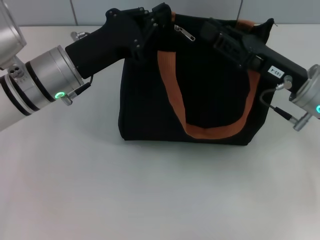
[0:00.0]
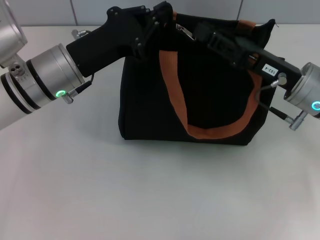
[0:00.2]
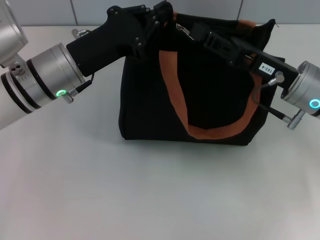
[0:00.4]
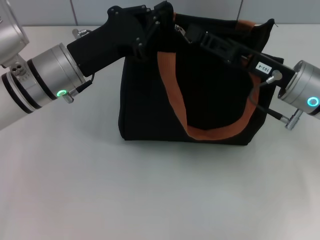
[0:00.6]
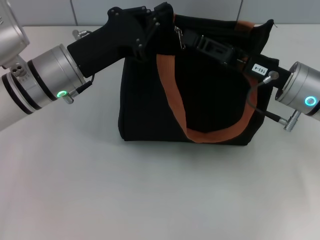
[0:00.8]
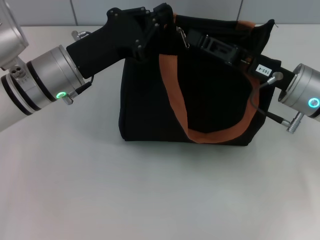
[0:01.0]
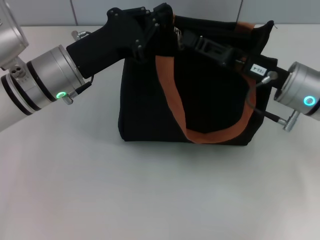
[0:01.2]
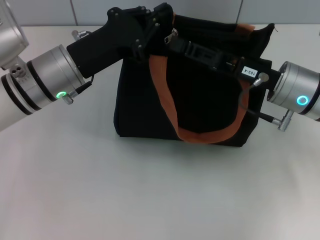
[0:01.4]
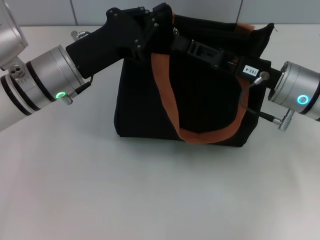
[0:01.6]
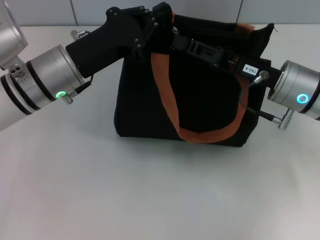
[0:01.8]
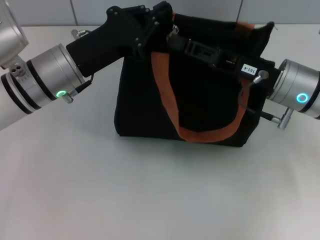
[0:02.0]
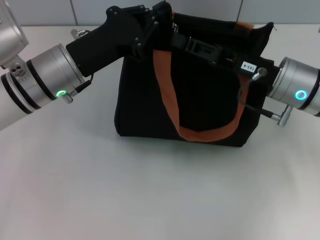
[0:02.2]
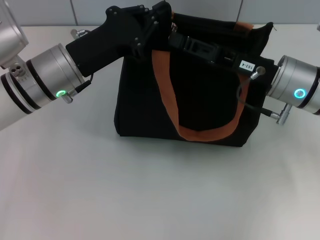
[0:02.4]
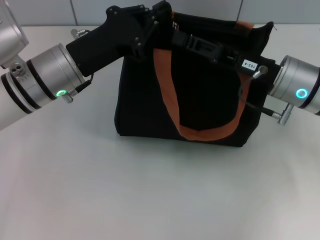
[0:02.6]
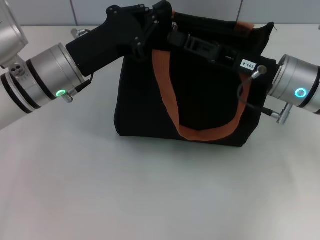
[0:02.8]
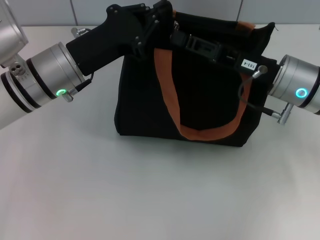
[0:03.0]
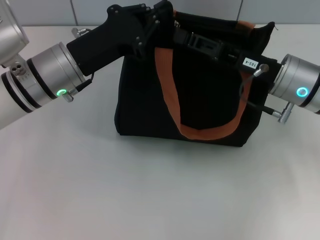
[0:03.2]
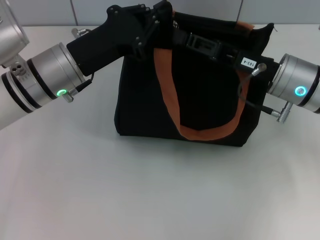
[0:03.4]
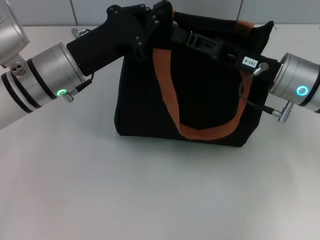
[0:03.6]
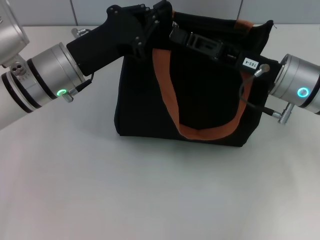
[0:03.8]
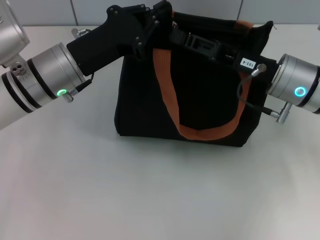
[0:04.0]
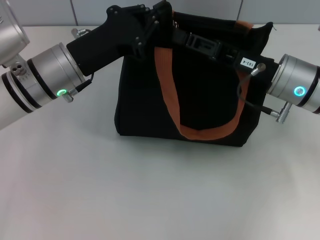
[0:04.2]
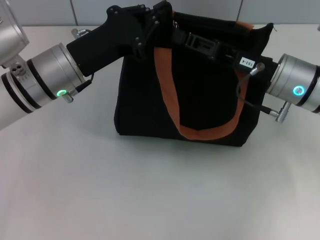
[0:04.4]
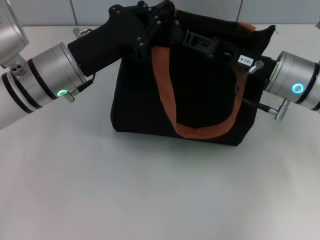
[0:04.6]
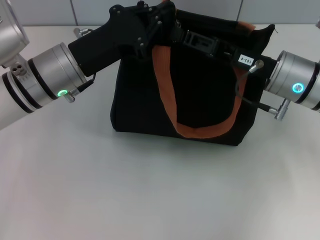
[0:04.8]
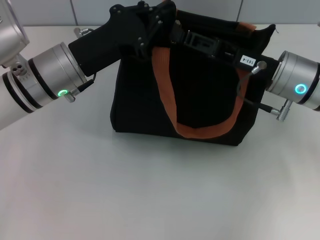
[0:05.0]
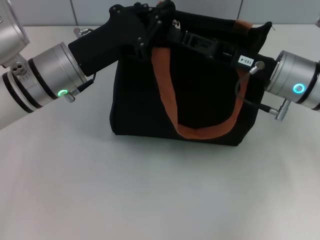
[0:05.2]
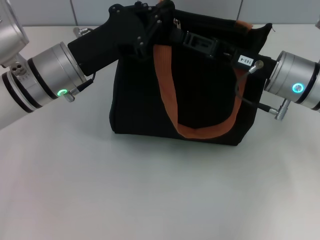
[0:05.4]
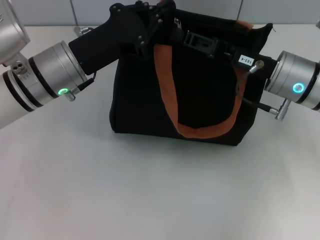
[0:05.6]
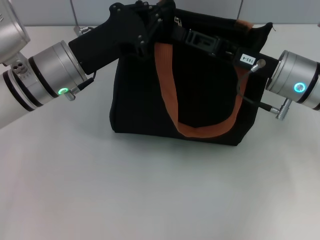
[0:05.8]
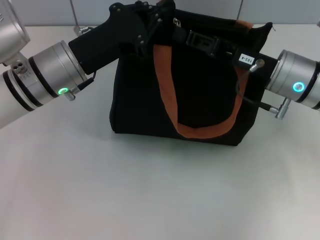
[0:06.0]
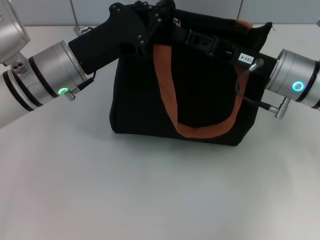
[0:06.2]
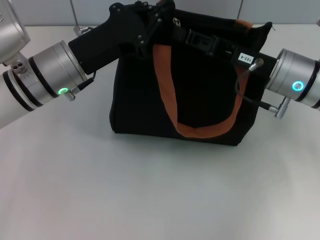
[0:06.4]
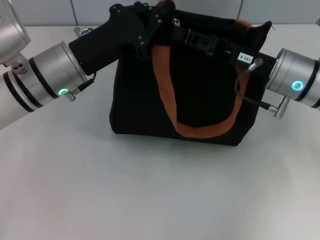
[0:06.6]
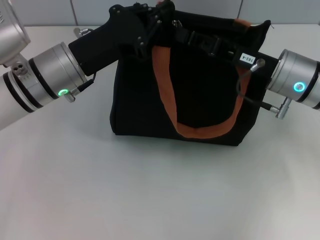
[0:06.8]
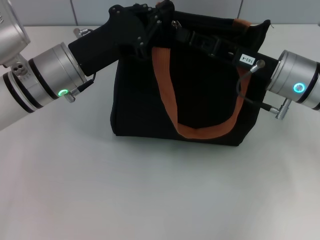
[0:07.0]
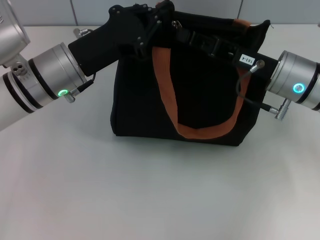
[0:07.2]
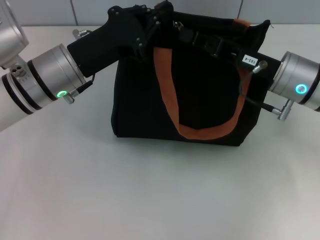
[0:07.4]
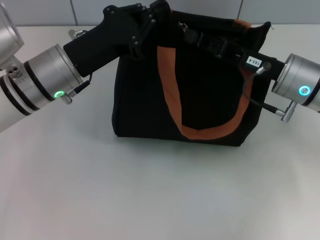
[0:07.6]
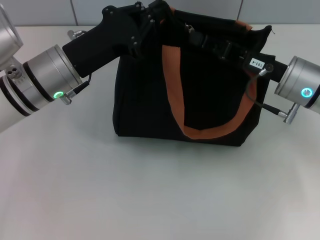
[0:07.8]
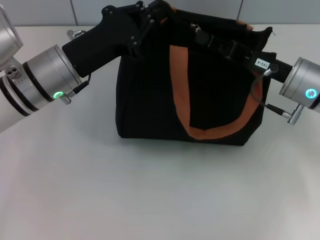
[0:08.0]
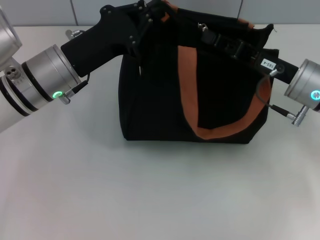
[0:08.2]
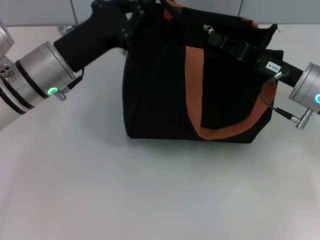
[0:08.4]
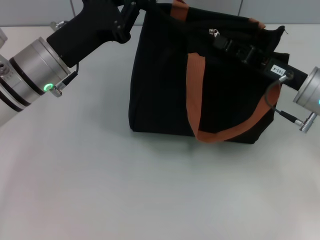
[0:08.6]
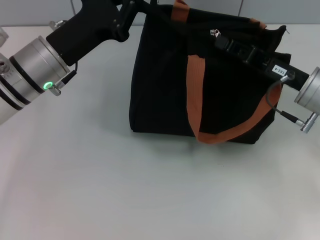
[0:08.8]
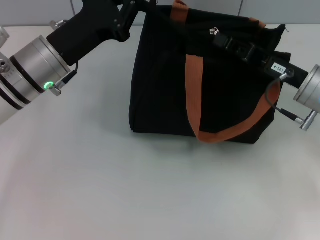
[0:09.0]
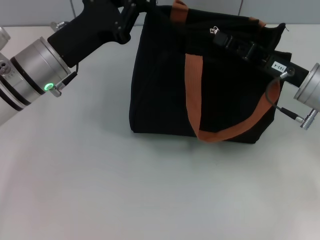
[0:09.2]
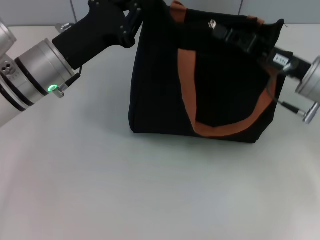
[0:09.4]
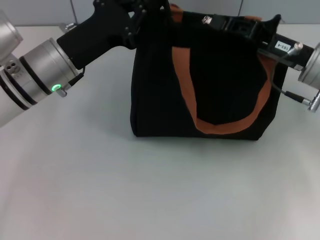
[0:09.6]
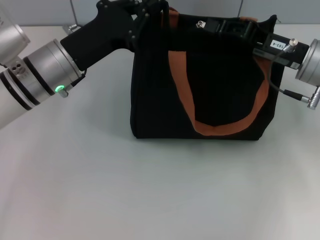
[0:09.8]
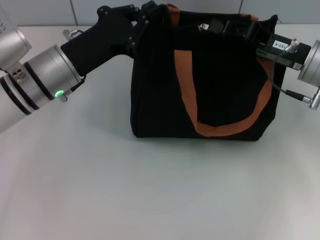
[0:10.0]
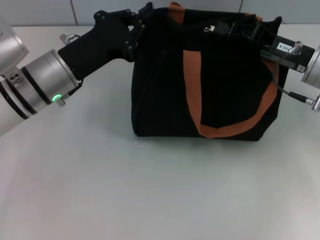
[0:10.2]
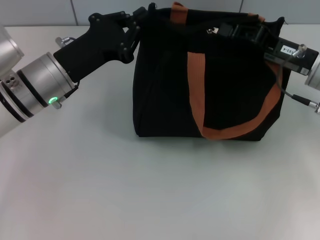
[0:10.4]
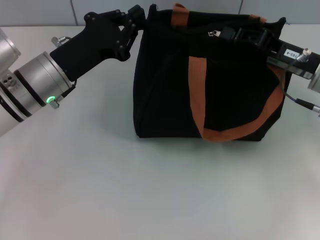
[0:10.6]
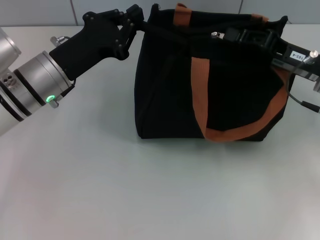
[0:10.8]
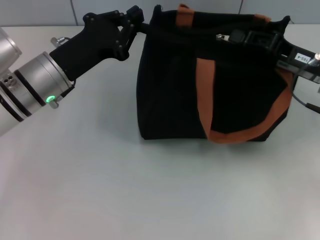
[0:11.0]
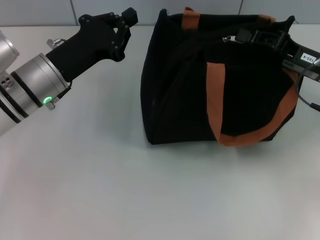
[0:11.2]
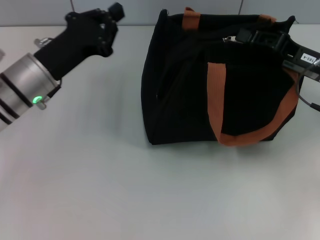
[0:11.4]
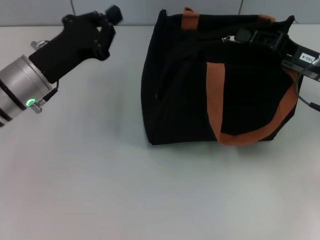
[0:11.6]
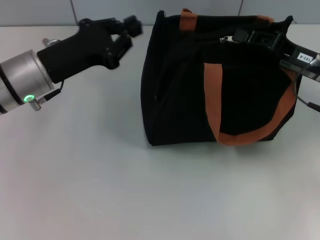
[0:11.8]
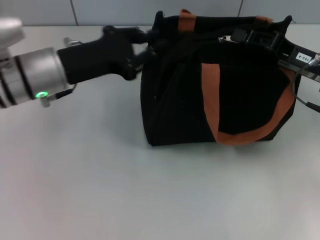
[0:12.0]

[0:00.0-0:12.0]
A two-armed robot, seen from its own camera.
0:00.0 to 0:01.6: The grippers move only a little.
0:01.6 to 0:04.4: Both grippers stay put.
0:04.4 to 0:06.0: Neither gripper changes place.
0:06.0 to 0:07.6: The right gripper closes up.
0:09.0 to 0:10.4: The grippers stay close to where they were, moving slightly.

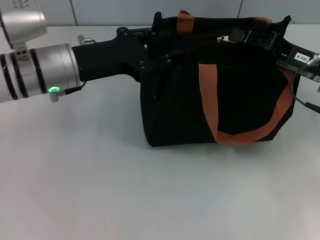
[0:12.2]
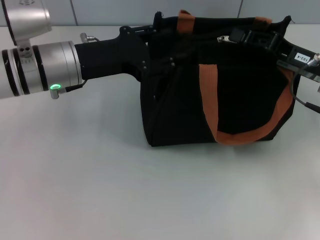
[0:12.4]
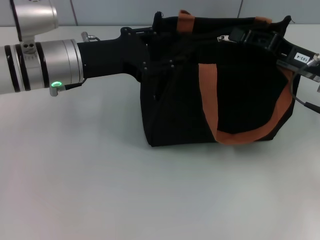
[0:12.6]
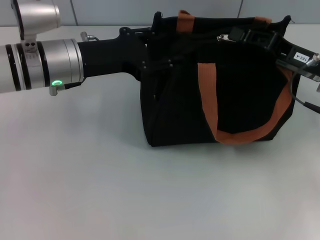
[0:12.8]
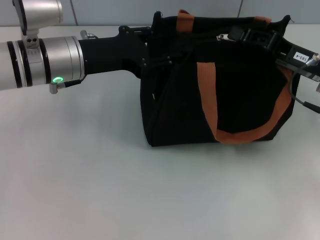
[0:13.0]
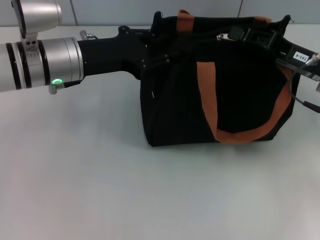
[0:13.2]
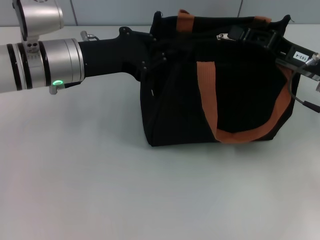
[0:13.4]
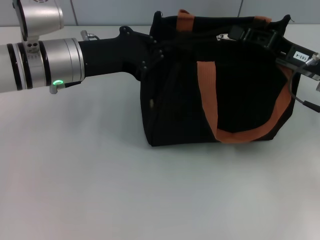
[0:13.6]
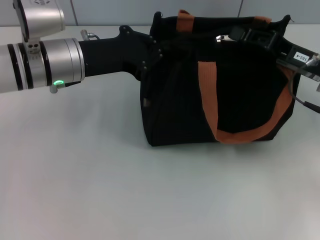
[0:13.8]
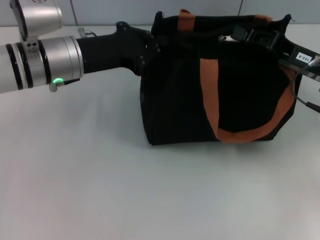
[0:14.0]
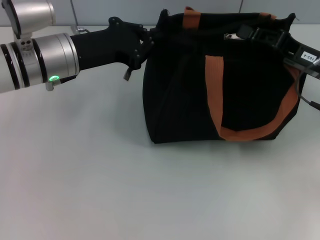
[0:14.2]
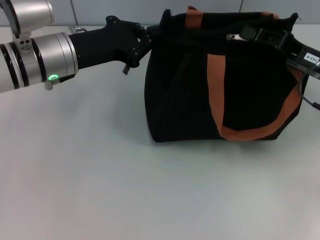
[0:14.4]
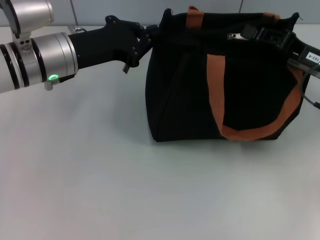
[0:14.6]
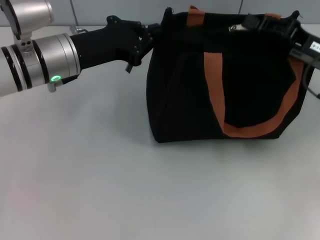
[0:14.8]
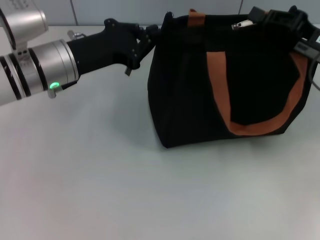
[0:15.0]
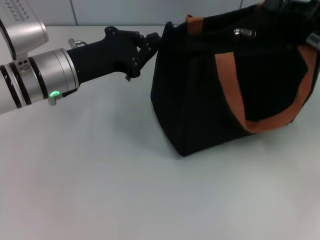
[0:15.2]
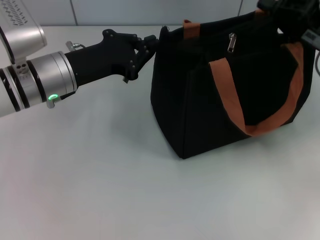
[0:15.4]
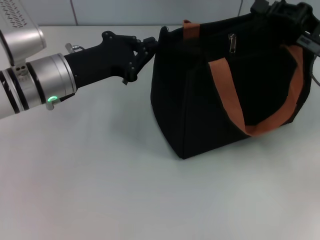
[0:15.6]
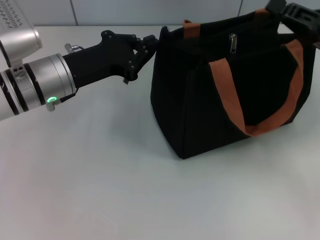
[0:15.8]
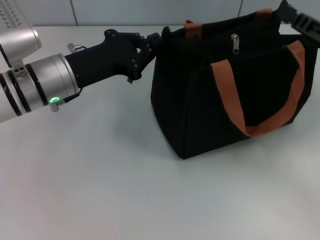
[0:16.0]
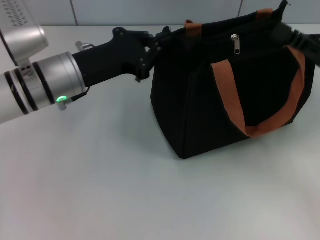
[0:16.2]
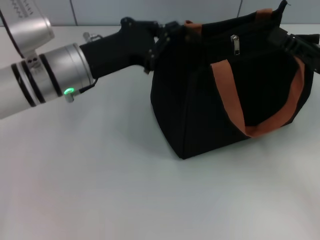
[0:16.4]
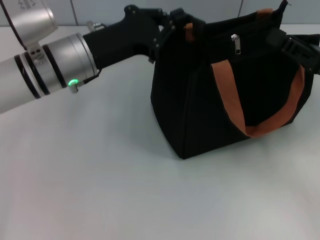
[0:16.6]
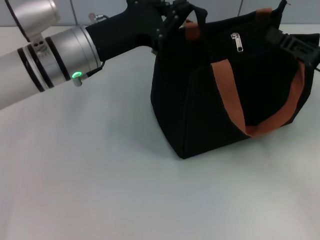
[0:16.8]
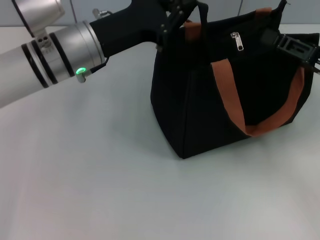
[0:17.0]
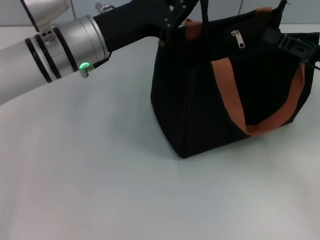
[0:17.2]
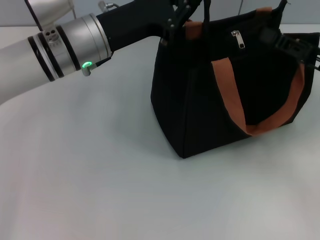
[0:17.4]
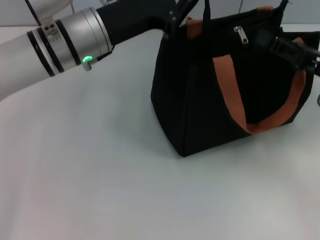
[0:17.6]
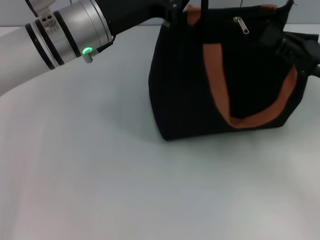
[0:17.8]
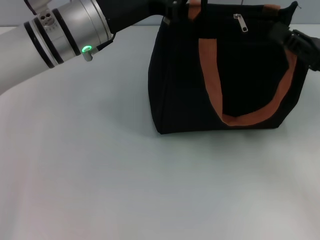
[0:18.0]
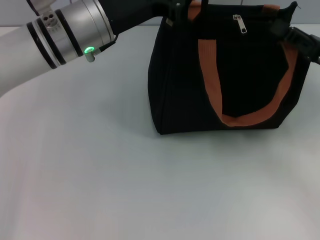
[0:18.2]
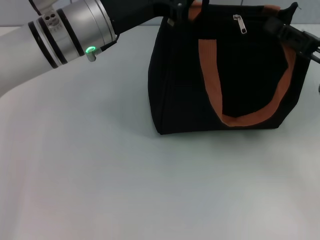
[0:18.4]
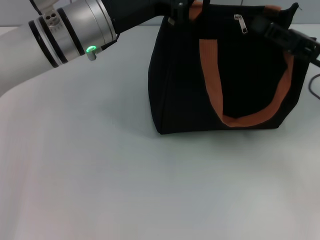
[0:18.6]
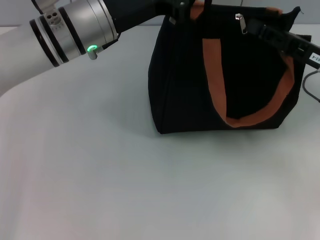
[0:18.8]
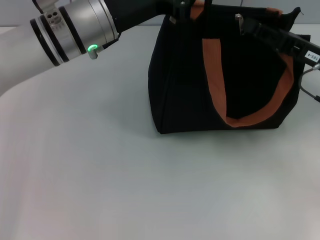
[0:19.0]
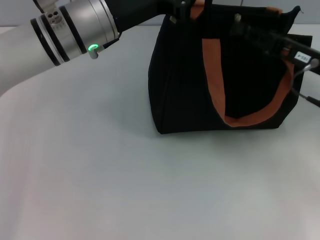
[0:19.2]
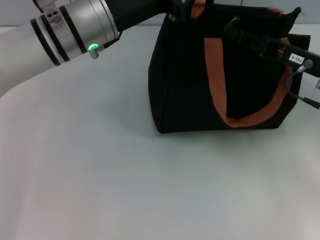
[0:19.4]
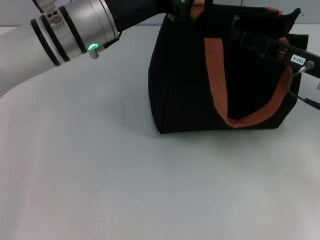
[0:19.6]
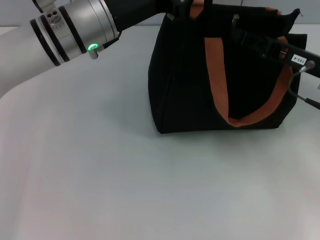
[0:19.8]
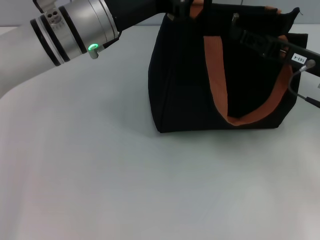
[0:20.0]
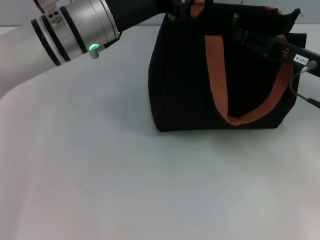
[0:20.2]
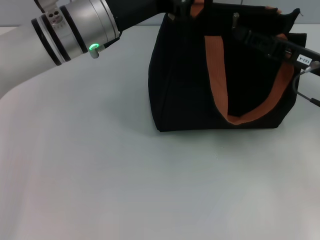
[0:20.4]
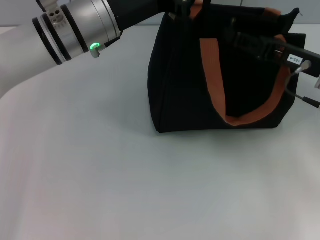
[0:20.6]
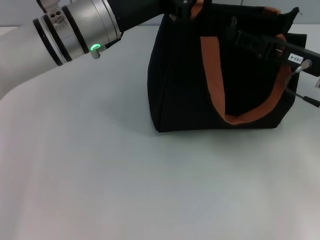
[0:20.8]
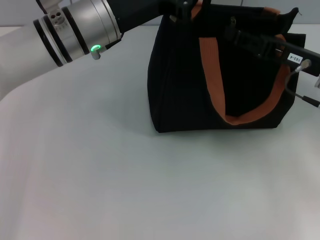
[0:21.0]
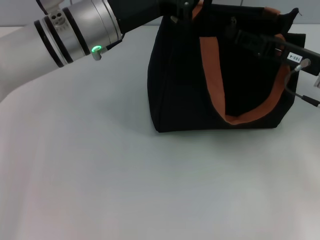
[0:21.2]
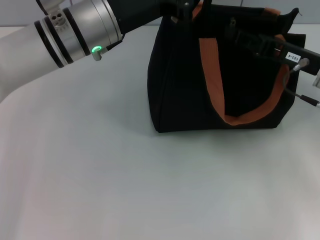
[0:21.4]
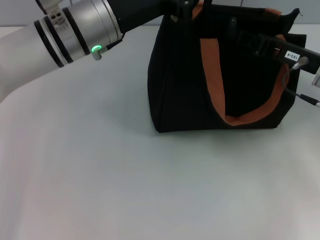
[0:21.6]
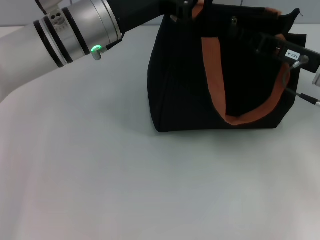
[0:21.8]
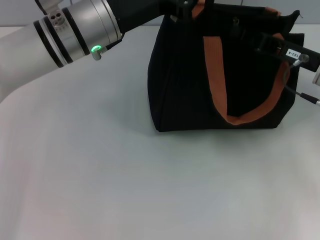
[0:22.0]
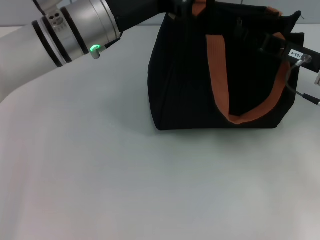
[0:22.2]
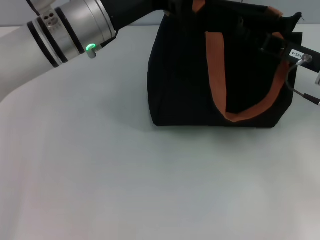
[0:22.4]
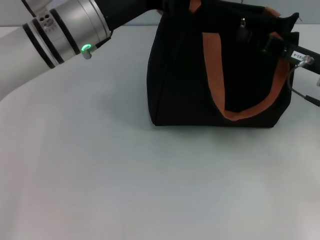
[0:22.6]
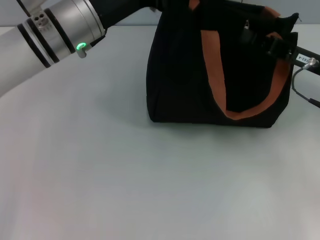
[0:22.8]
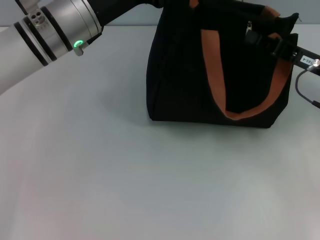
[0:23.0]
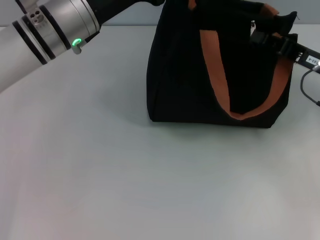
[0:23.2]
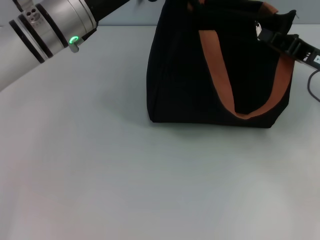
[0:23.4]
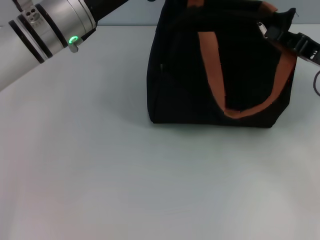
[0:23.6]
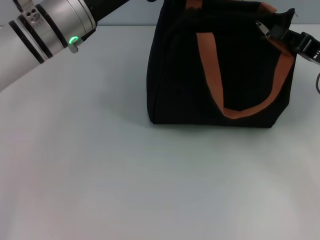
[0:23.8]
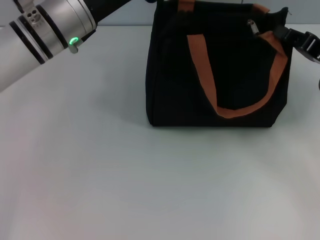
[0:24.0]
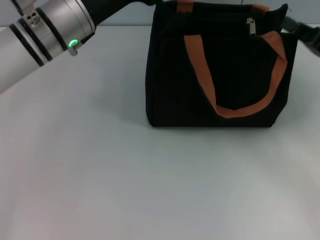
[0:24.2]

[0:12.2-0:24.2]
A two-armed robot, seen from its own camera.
Step, 0:12.2 to 0:23.2: Grab the zipper with your left hand.
Step, 0:23.6 to 0:23.8: Pull up the zipper with your right hand.
0:12.2 to 0:13.8: The left gripper opens and closes again.
0:15.2 to 0:16.6: The right gripper opens.
0:18.2 to 0:19.8: The right gripper moves roughly 5 cm.
0:19.8 to 0:21.2: Both grippers stay put.
0:21.2 to 0:22.6: The right gripper closes its fingers.
0:22.6 to 0:24.2: The right gripper ends up roughly 5 cm from where it was.
